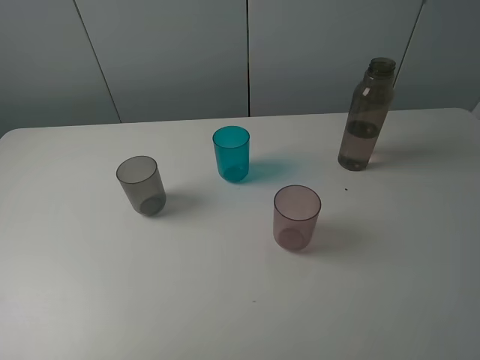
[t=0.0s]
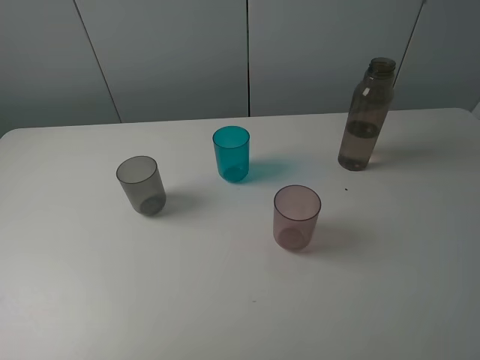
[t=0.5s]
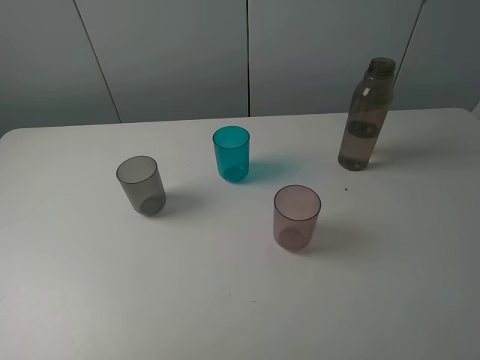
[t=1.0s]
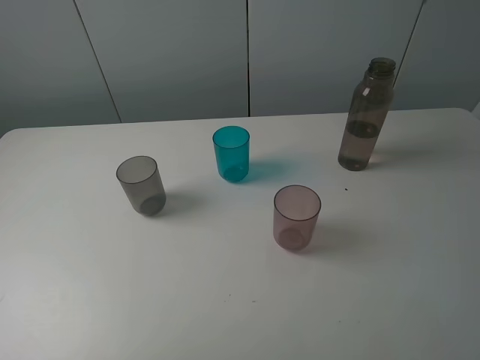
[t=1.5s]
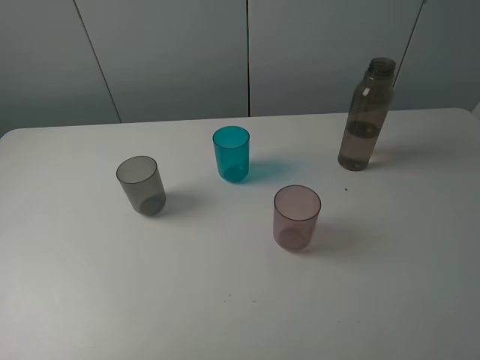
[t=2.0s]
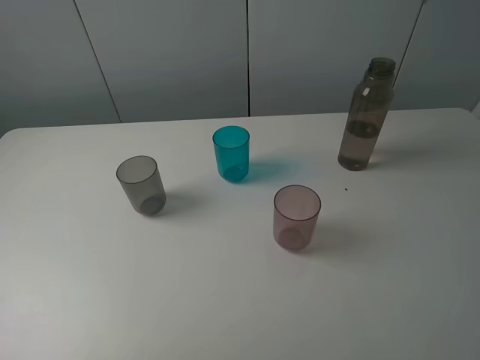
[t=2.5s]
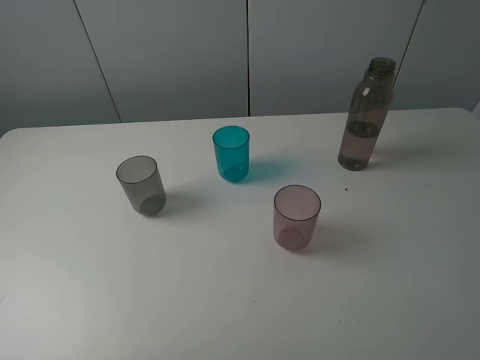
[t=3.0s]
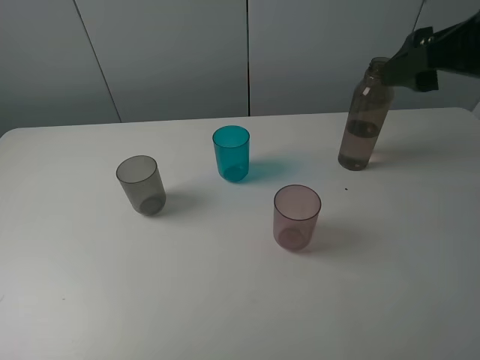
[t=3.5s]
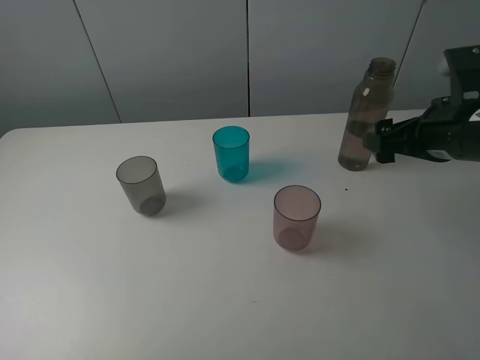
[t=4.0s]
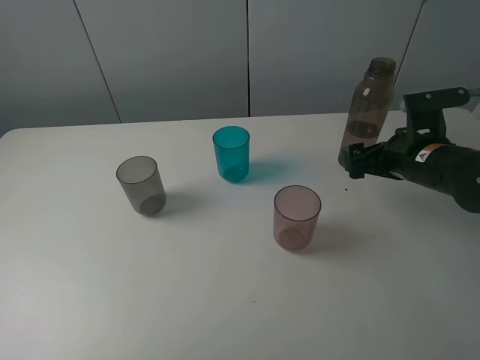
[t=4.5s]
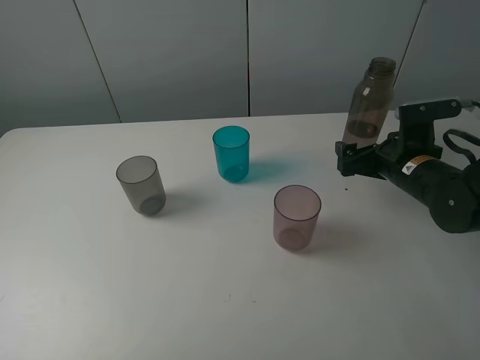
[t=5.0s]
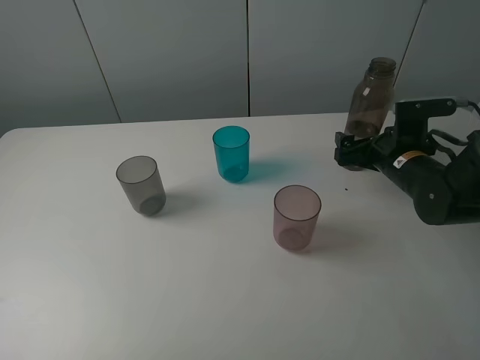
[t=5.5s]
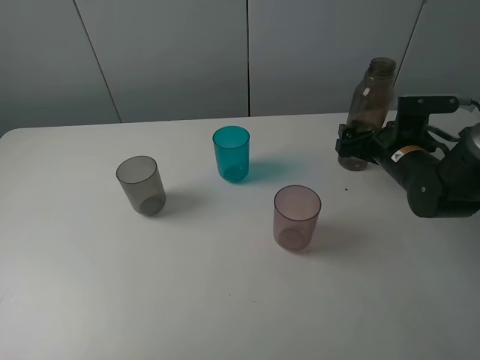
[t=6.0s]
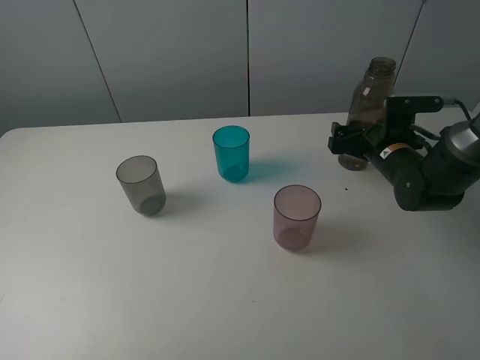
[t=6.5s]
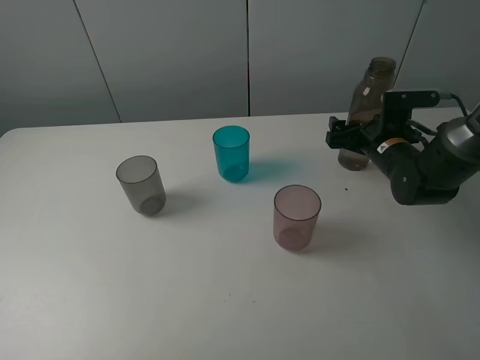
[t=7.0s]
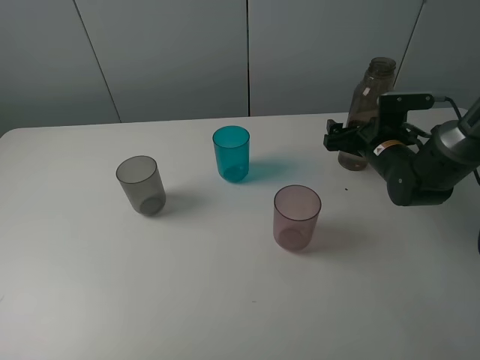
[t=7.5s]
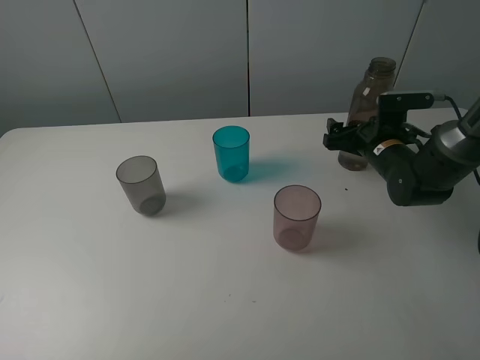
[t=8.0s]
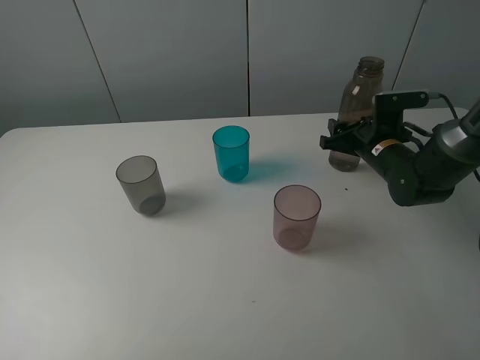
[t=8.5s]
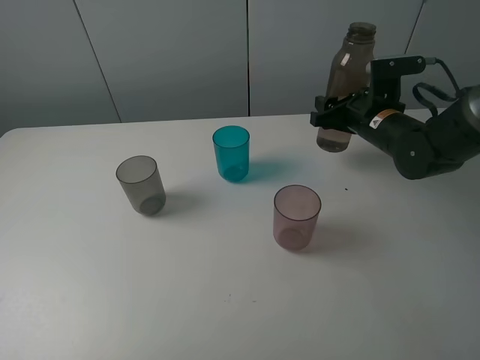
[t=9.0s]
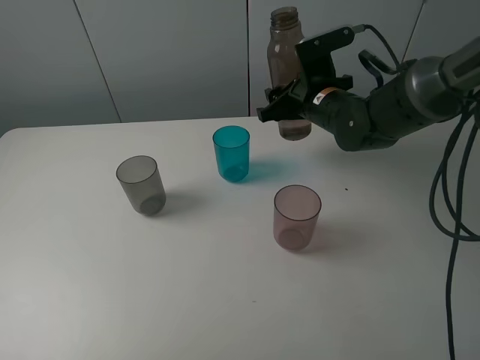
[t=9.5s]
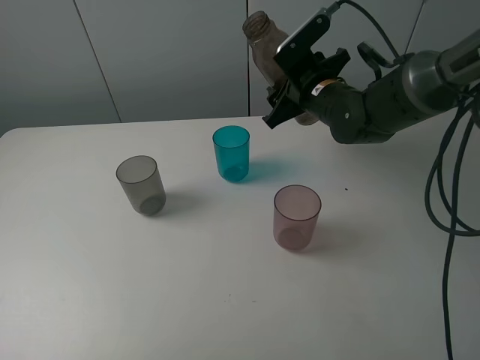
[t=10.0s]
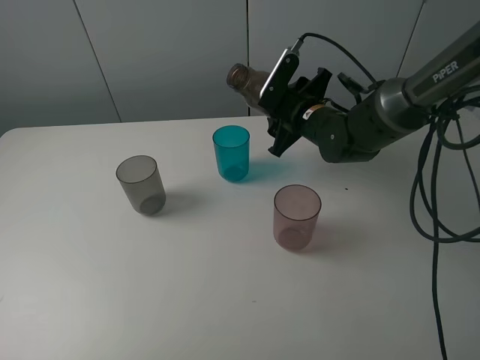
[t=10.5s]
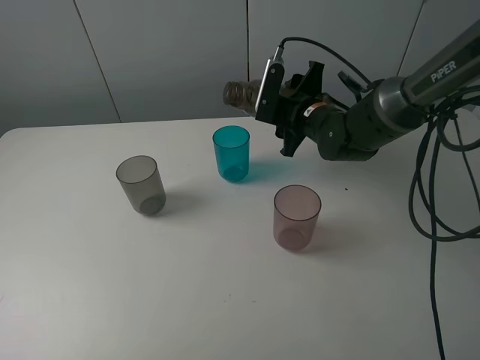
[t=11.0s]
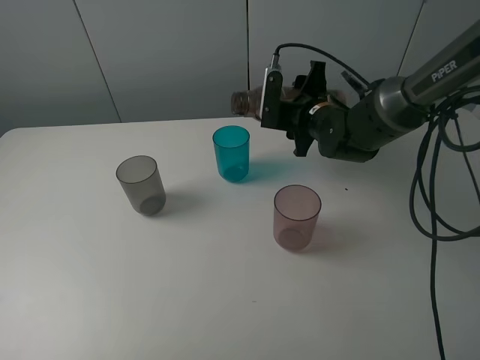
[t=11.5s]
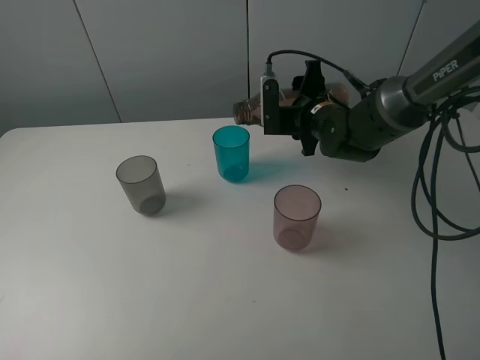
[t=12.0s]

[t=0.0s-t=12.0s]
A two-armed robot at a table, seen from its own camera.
Task of the whole recording: pick up the bottle filled with water and pour water into the middle cup of the three cups.
Step, t=0.0s to t=8.5s: Grasp the brown bottle with the right gripper.
t=0.0s to t=2.0s: Both grippers stay about where they are.
t=2.0s to t=4.0s: The right gripper goes about 25 cm forward.
t=4.0s to t=6.0s: The right gripper shifts about 15 cm downward and forward.
t=6.0s to t=8.0s: The right gripper closes up.
t=8.0s to t=10.0s: The right gripper heads to the left and upward, covering roughly 15 cm, and closes.

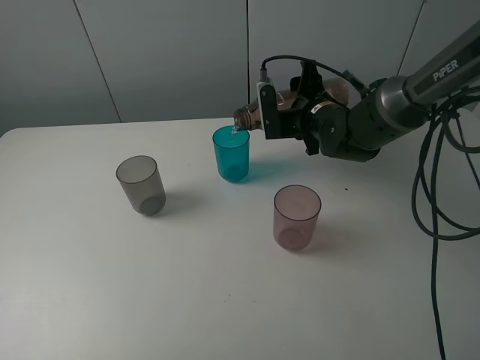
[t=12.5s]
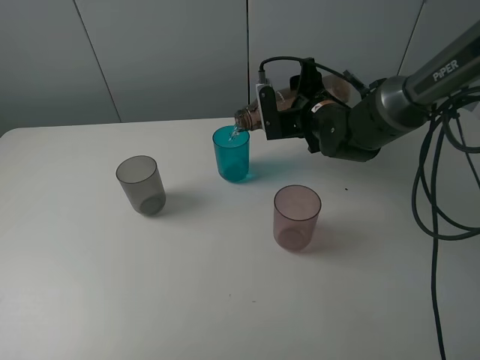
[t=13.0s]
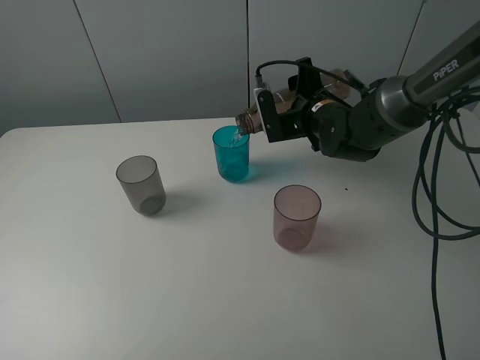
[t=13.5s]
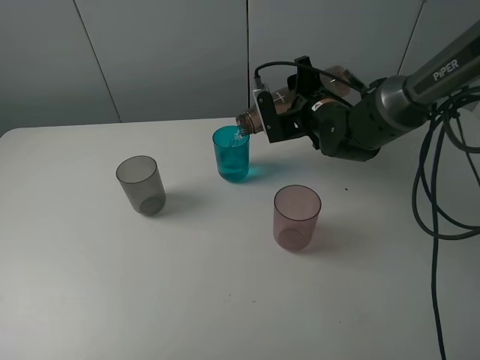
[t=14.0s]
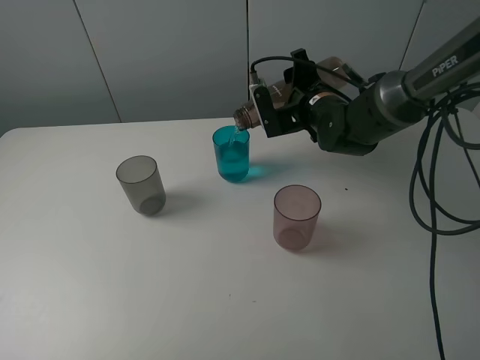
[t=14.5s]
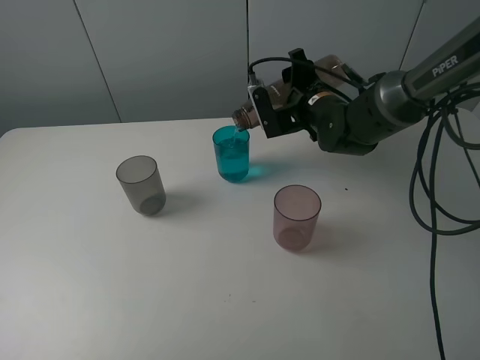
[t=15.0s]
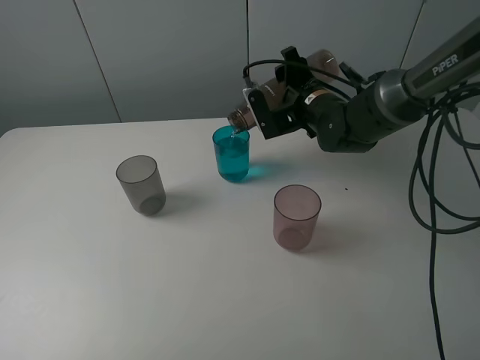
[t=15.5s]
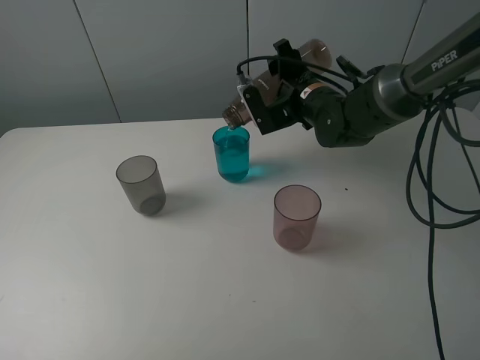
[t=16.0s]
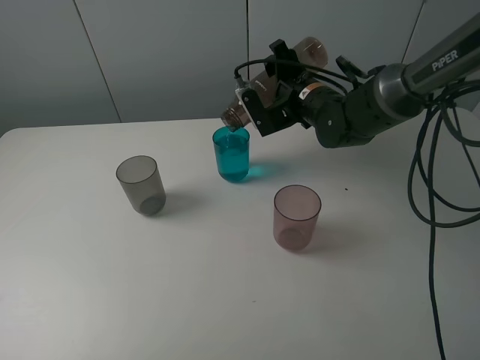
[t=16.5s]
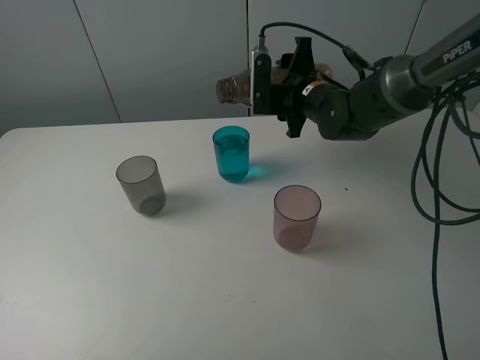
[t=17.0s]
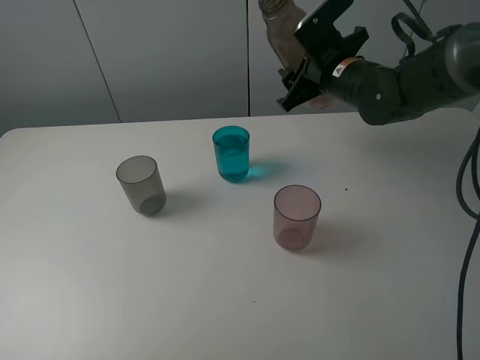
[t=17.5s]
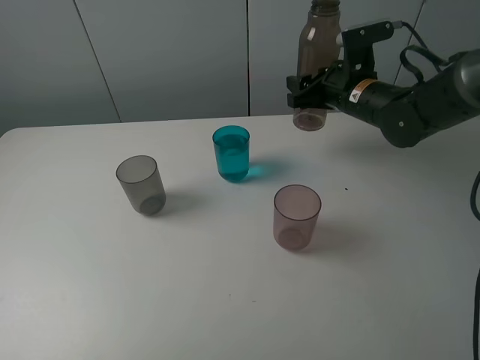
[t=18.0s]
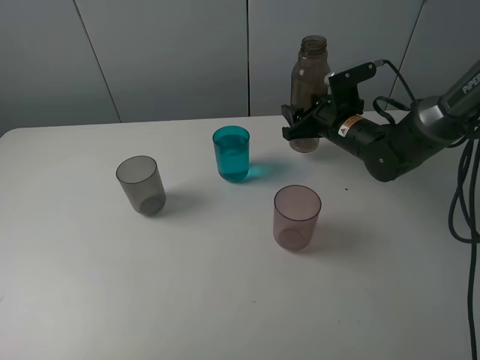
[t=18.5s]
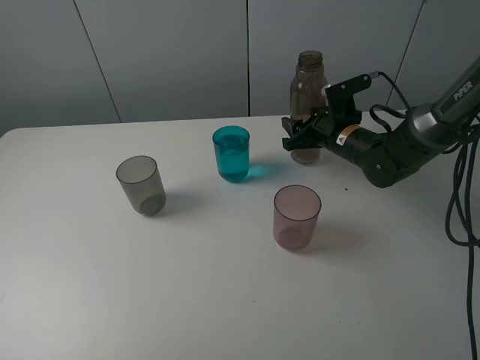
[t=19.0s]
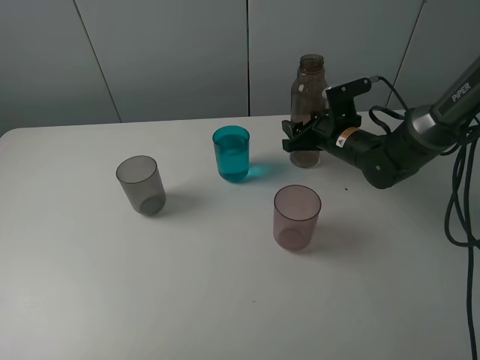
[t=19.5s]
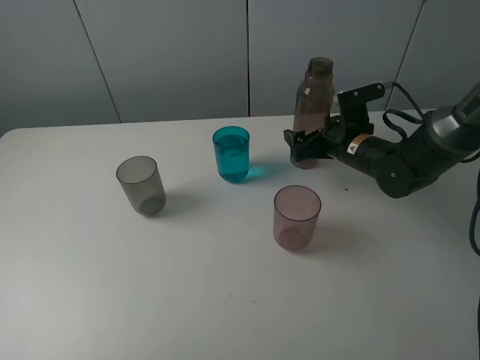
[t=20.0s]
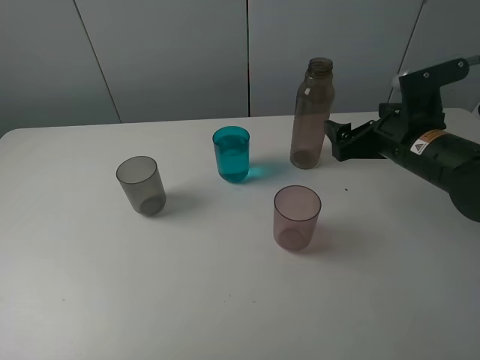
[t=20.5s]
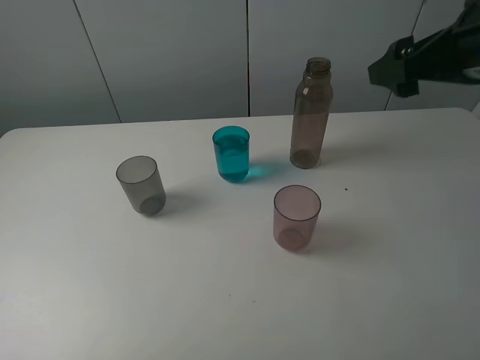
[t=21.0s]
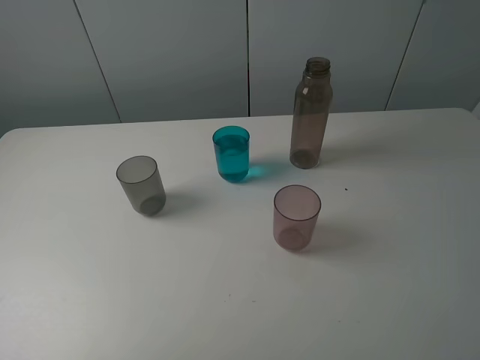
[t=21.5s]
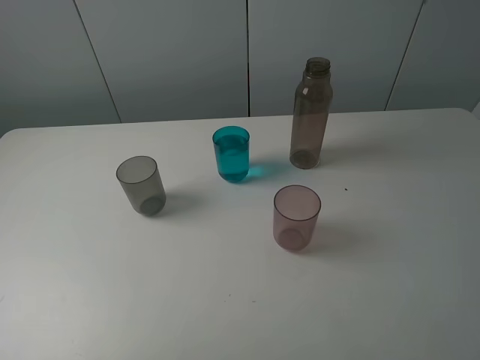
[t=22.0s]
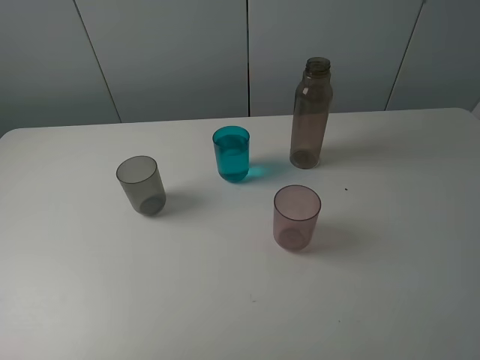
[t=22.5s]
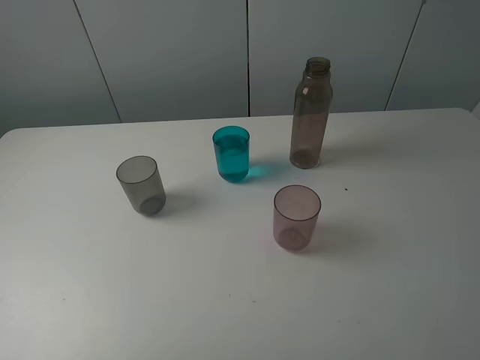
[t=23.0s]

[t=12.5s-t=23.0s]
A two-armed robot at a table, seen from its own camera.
Task of the whole recording: pick up the bottle filled with water and pour water into the middle cup of the three cups.
Step, t=12.5s to t=16.5s: Pour water from brown bottle to blue cup with the right gripper.
Step, t=17.0s to t=21.0s: Place the brown bottle with the right gripper.
t=12.5s to t=14.5s: The grippers stay close to where they were, moving slightly.
t=14.5s to t=16.5s: The grippers move only a little.
t=16.5s to t=19.0s: The right gripper goes approximately 10 cm downward and to the right.
t=19.0s to t=21.0s: The right gripper is displaced upward and backward by some 30 cm, and opens.
t=21.0s to t=23.0s: The right gripper is displaced backward by roughly 25 cm.

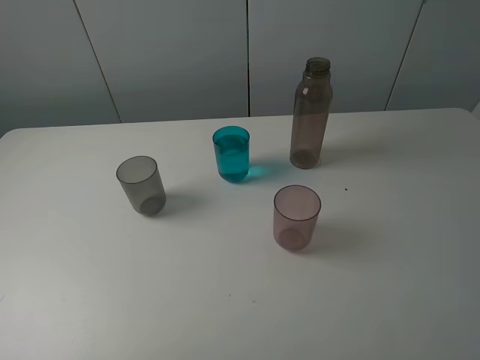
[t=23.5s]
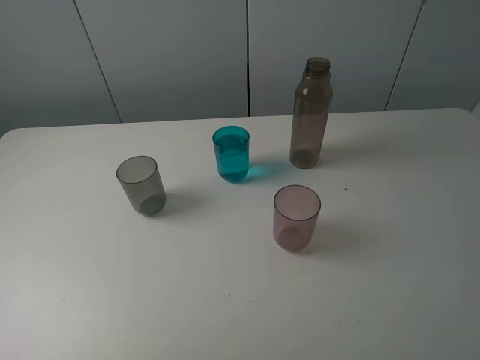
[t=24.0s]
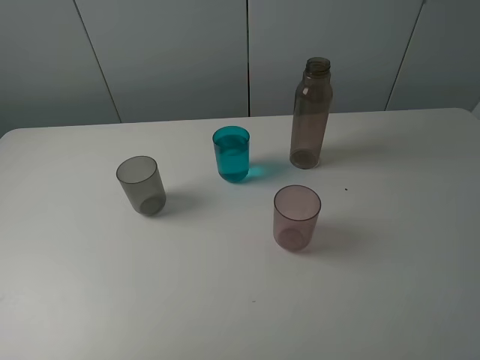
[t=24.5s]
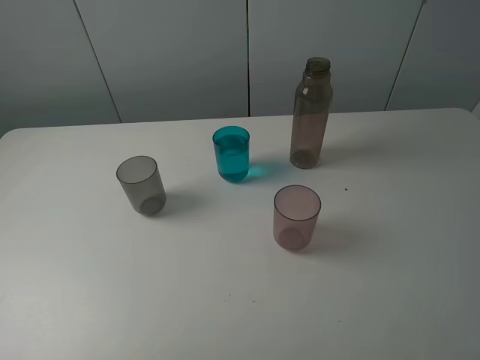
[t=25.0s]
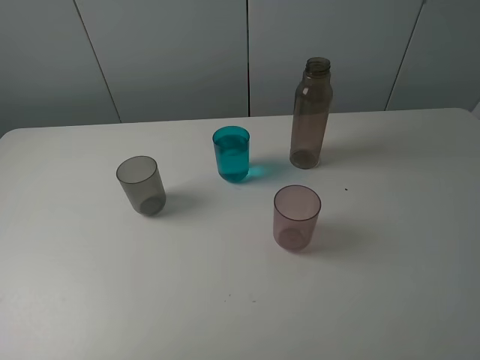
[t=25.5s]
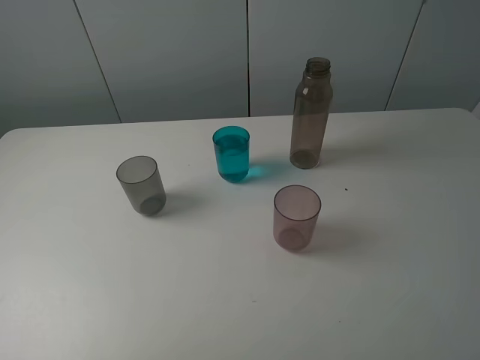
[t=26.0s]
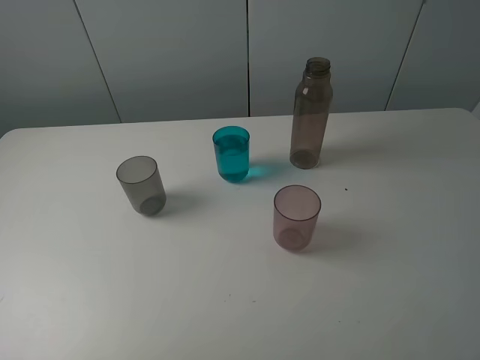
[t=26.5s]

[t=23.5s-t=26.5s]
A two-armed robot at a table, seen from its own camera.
Task of the whole recording: pick up the bottle filled with water and pour water into the middle cup of the three cups.
t=23.5s to t=25.0s: Both grippers stay put.
t=25.0s to t=26.5s: The two grippers keep their place.
